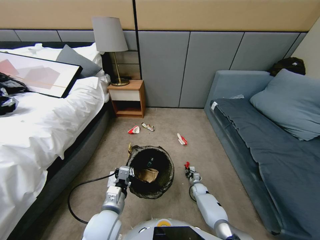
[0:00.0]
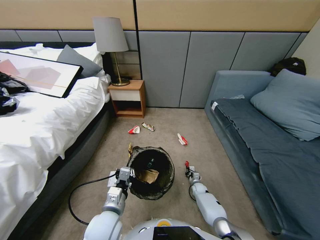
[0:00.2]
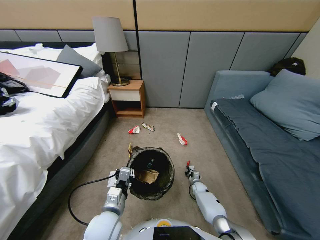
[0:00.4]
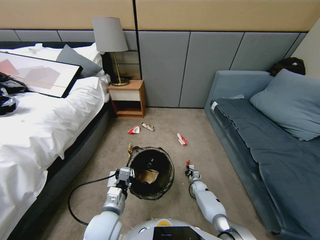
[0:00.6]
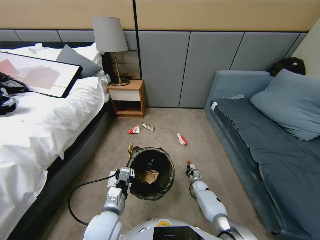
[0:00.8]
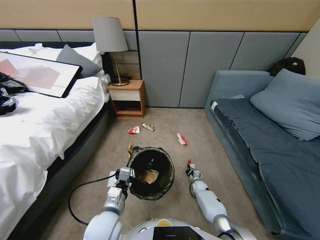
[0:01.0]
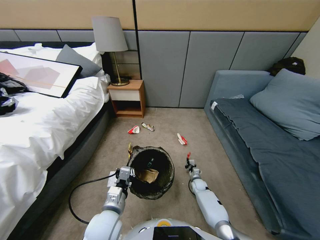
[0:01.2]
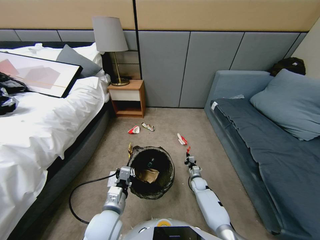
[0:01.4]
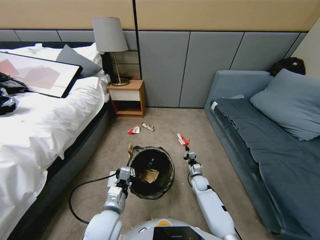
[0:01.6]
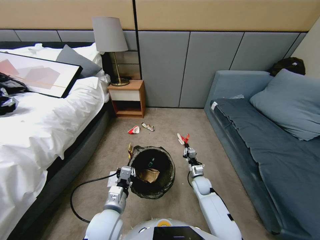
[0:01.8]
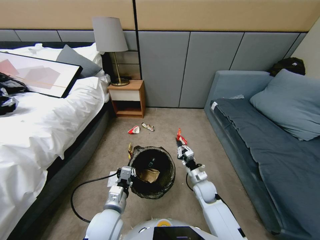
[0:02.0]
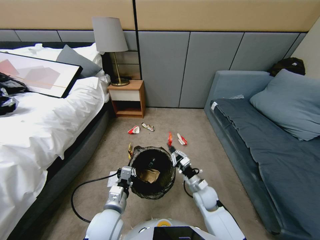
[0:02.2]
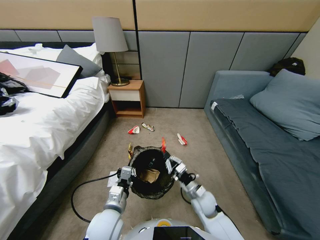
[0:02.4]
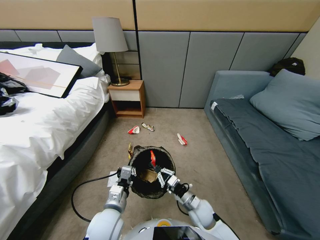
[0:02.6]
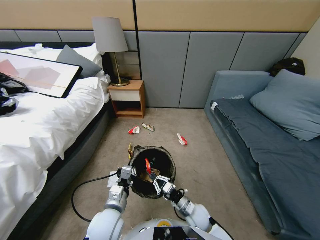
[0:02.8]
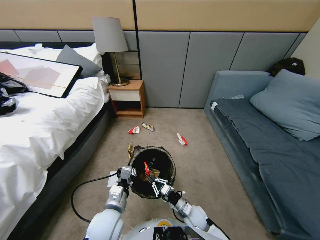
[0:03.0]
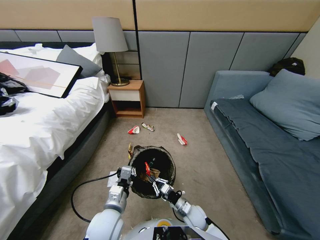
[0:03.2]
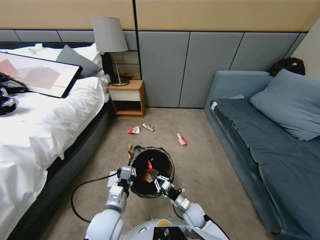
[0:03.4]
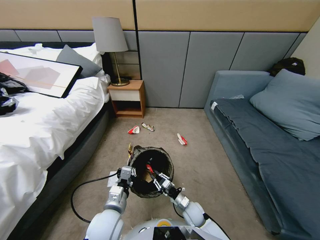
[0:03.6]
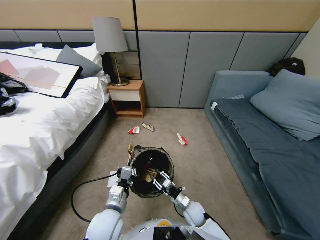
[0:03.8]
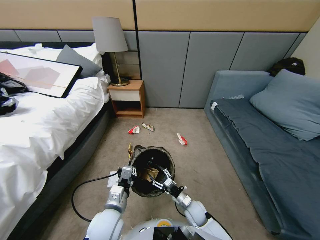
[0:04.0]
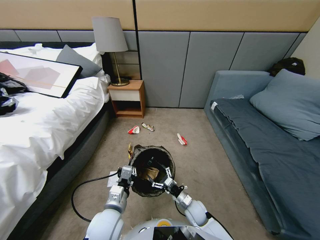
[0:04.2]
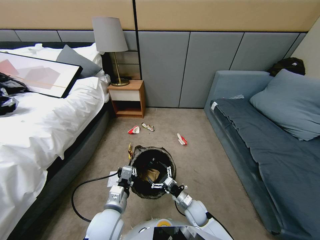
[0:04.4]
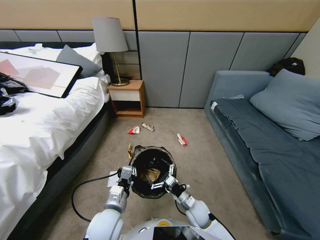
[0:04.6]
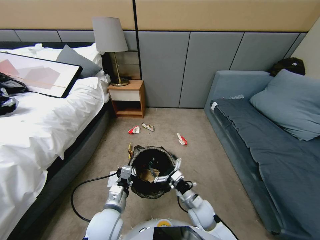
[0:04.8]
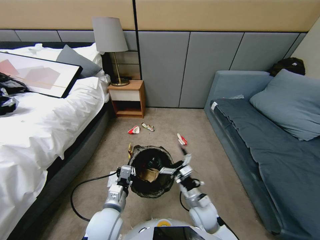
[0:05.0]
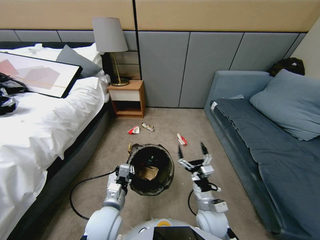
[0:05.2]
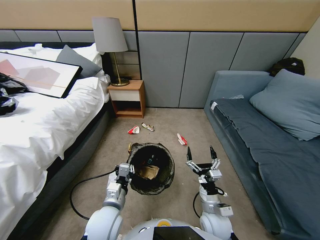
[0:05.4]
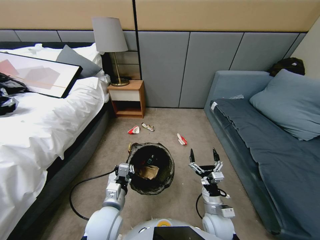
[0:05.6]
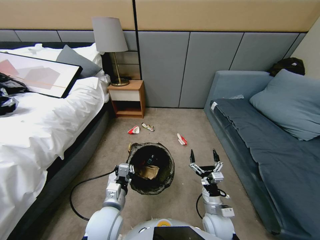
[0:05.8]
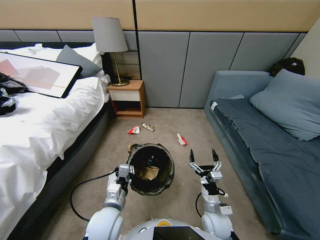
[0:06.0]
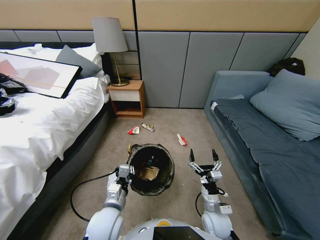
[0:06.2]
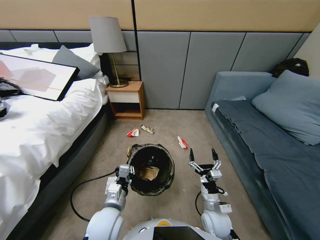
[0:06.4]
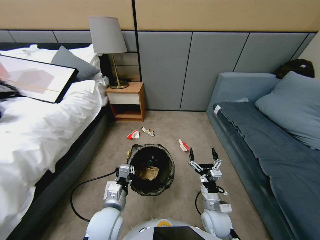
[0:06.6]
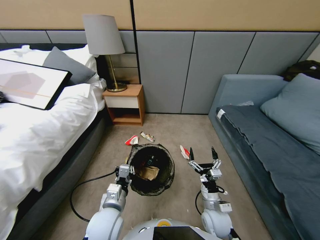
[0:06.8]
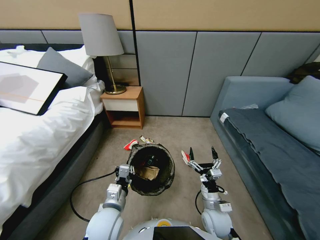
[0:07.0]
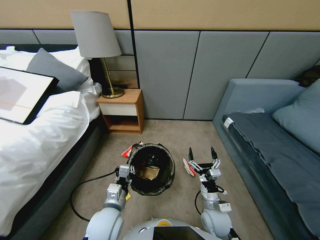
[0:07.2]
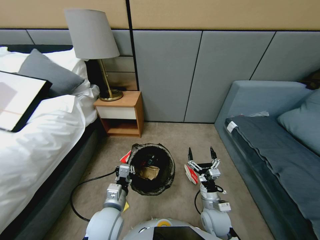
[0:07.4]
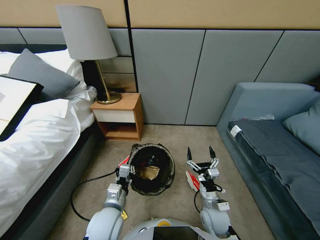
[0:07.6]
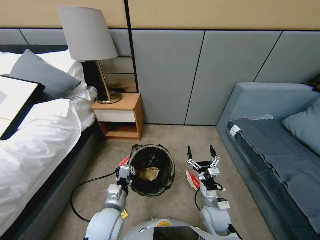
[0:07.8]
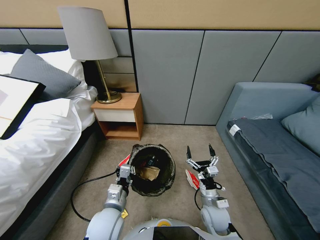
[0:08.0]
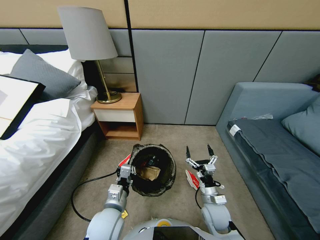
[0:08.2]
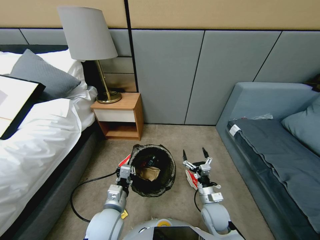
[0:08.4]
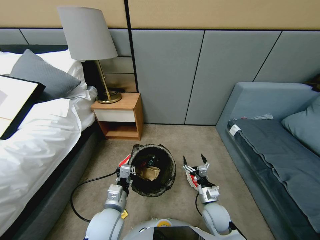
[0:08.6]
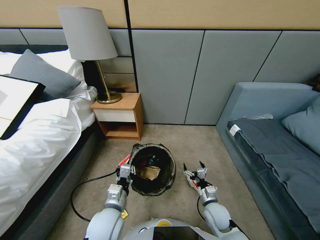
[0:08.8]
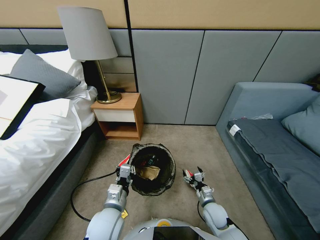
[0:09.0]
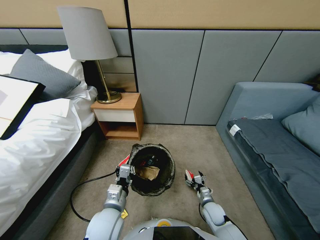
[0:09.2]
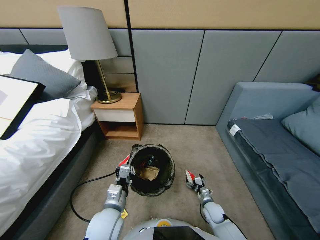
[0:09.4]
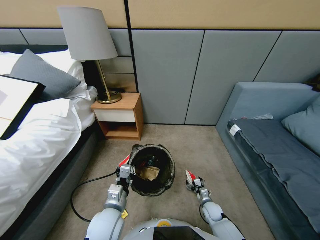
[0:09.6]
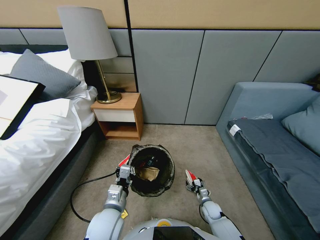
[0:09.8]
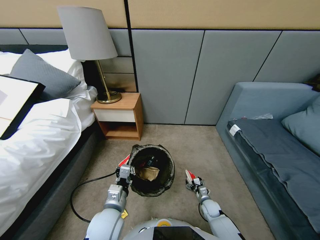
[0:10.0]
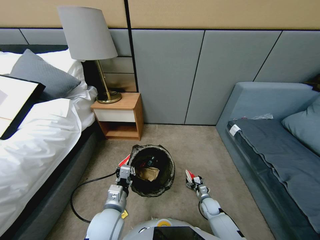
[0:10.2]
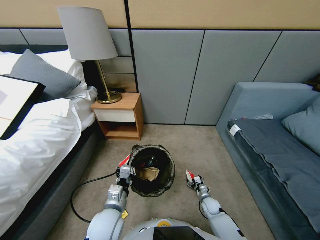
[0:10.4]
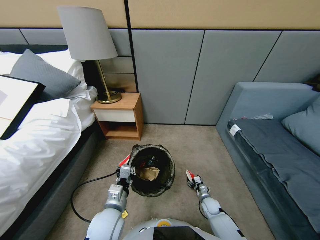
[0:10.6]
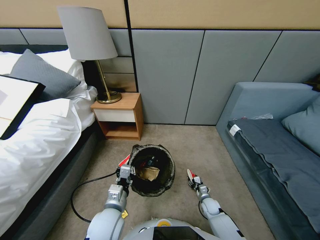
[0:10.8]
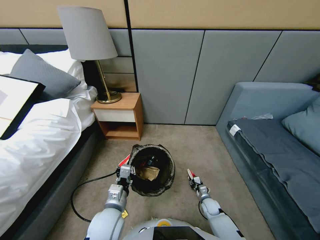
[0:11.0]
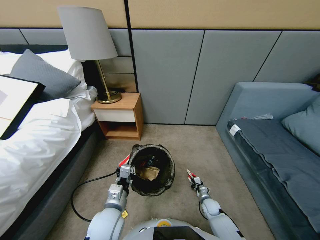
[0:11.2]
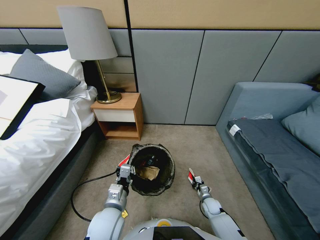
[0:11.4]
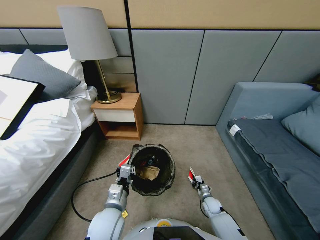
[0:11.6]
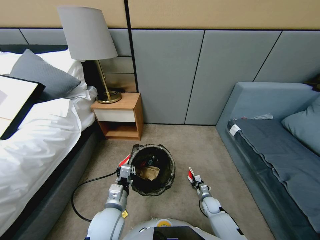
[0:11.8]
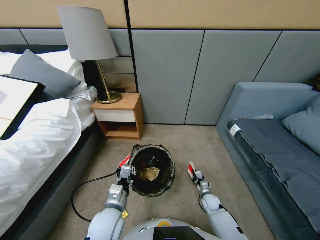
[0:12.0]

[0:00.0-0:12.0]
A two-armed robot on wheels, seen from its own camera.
Task of the whole recording: Pick up the trash bin, then pick up the garbage from the floor and place it into the trash bin.
0:00.0 to 0:01.6: The right gripper goes some 15 cm upward.
0:01.6 to 0:03.0: The right gripper shifts roughly 15 cm backward and to the left.
0:03.0 to 0:04.4: The right gripper opens.
0:04.4 to 0:06.0: The right gripper is displaced upward by roughly 5 cm.
0:07.6 to 0:09.0: The right gripper shifts roughly 10 cm downward.
0:09.0 to 0:10.4: The right gripper goes about 10 cm downward.
0:10.4 to 0:12.0: The right gripper goes some 5 cm upward, and closes up.

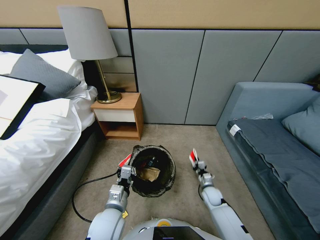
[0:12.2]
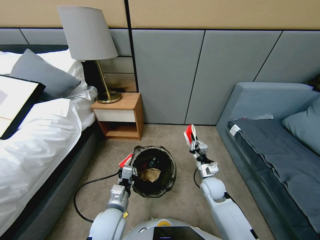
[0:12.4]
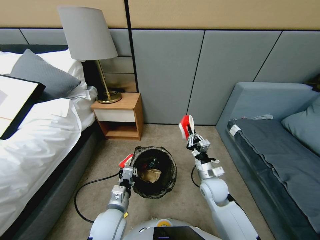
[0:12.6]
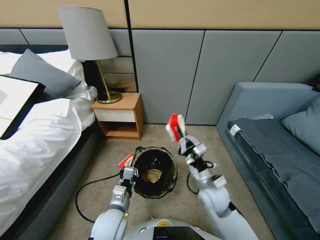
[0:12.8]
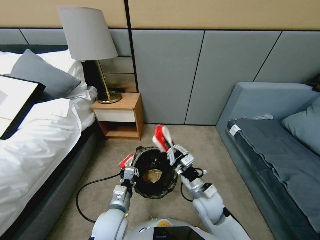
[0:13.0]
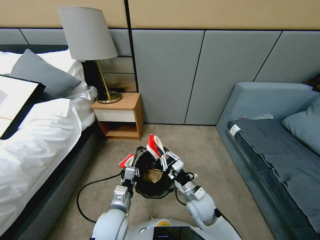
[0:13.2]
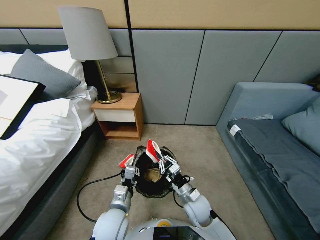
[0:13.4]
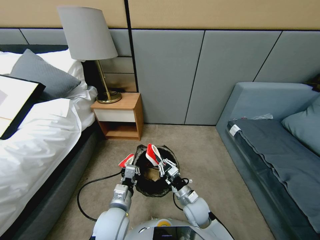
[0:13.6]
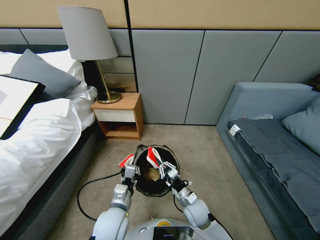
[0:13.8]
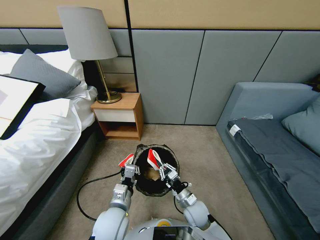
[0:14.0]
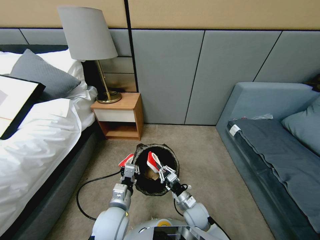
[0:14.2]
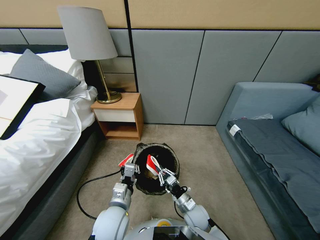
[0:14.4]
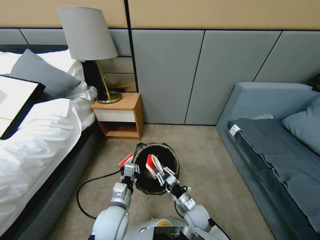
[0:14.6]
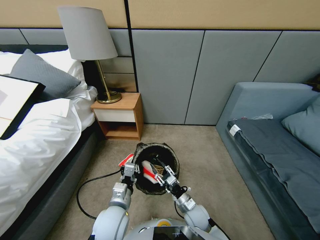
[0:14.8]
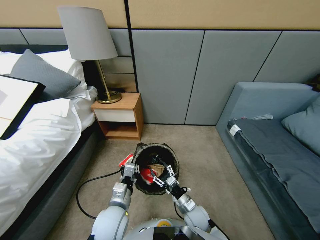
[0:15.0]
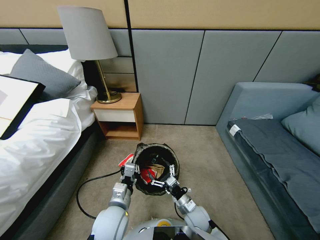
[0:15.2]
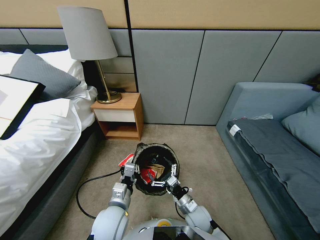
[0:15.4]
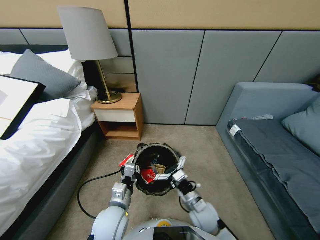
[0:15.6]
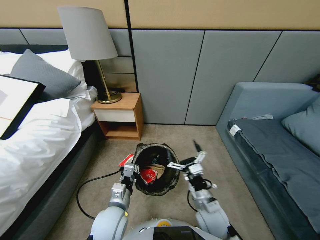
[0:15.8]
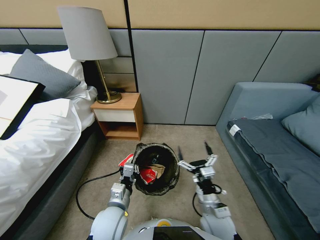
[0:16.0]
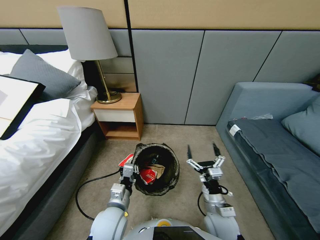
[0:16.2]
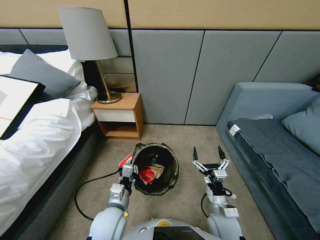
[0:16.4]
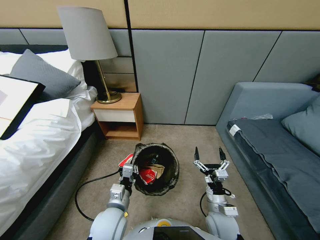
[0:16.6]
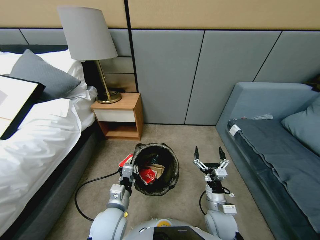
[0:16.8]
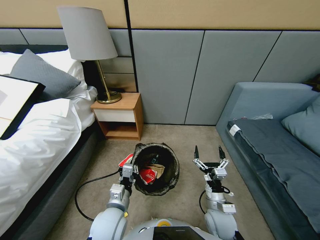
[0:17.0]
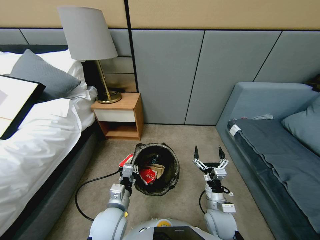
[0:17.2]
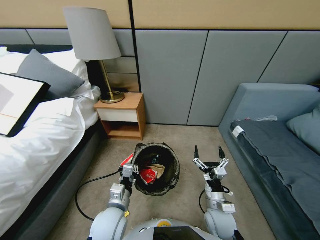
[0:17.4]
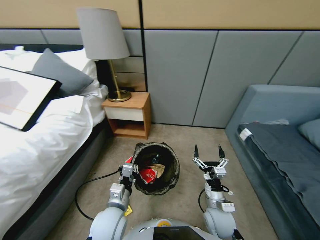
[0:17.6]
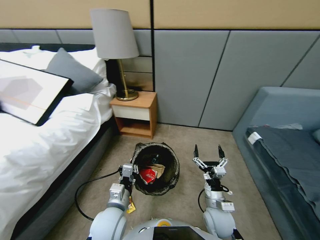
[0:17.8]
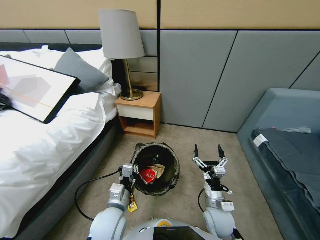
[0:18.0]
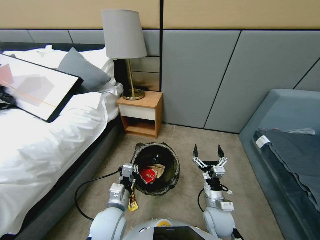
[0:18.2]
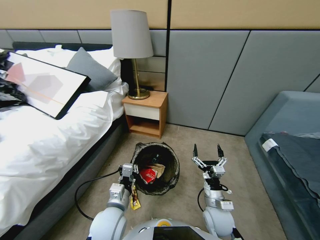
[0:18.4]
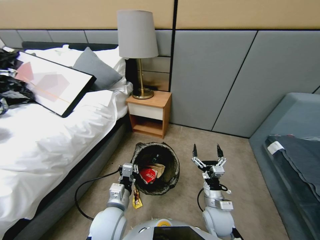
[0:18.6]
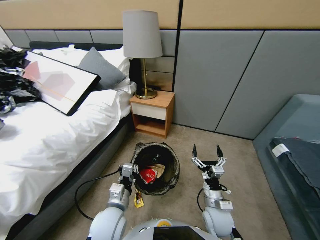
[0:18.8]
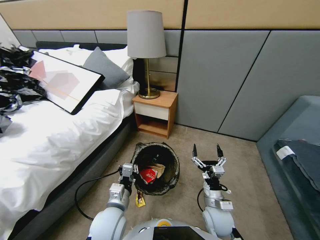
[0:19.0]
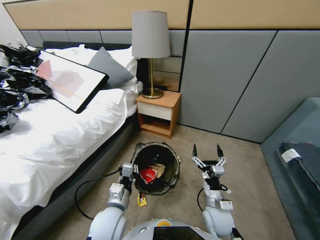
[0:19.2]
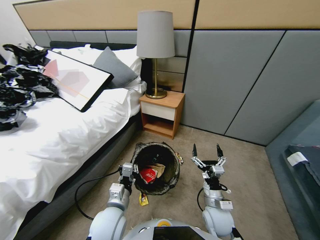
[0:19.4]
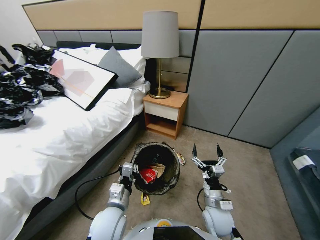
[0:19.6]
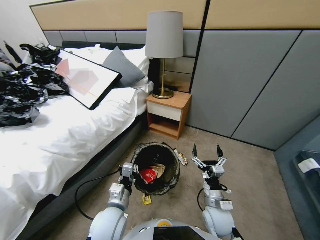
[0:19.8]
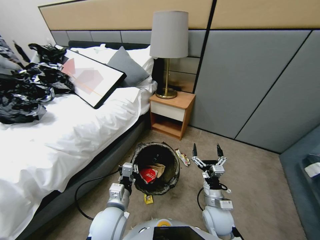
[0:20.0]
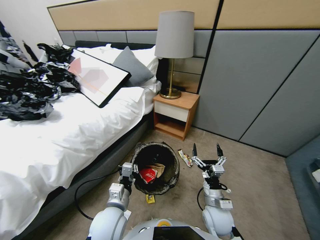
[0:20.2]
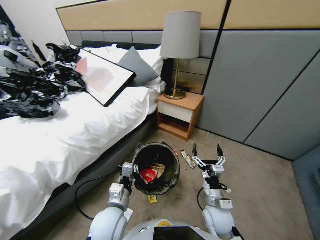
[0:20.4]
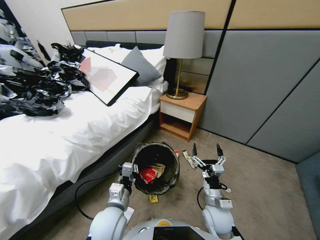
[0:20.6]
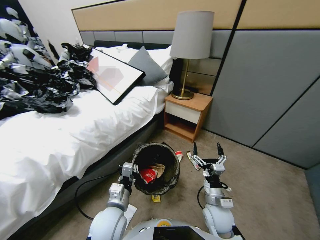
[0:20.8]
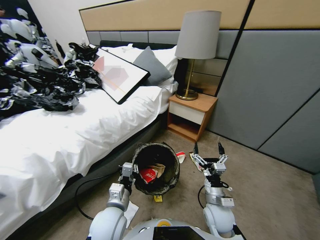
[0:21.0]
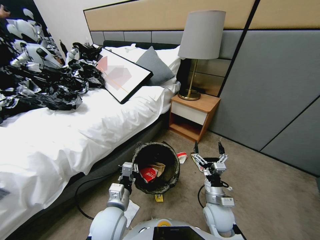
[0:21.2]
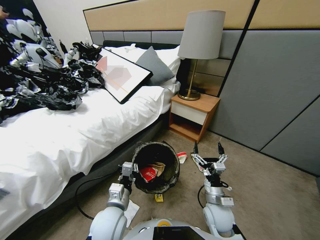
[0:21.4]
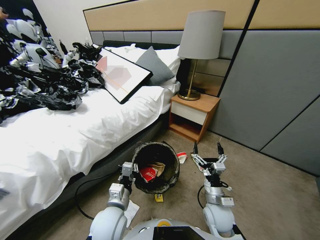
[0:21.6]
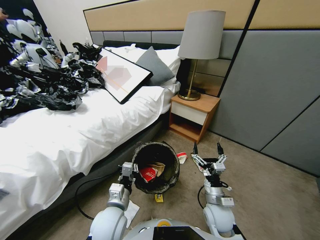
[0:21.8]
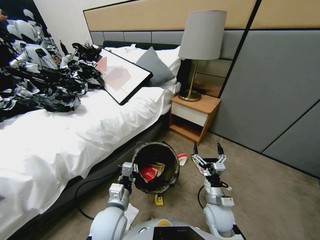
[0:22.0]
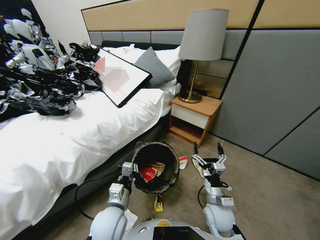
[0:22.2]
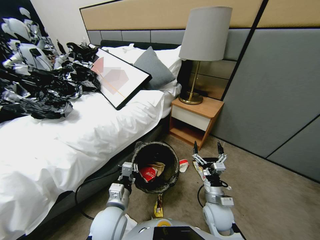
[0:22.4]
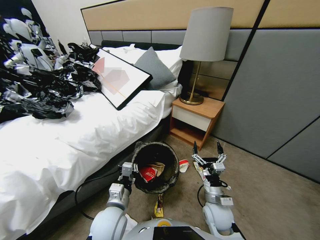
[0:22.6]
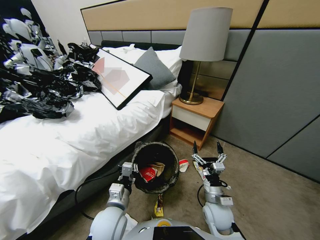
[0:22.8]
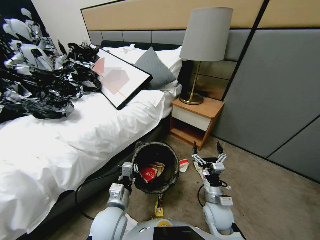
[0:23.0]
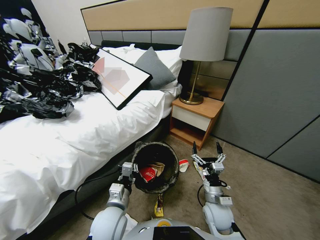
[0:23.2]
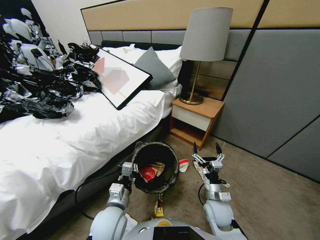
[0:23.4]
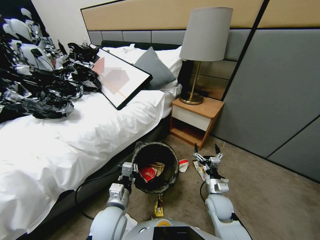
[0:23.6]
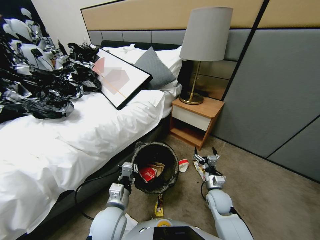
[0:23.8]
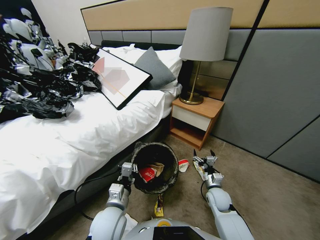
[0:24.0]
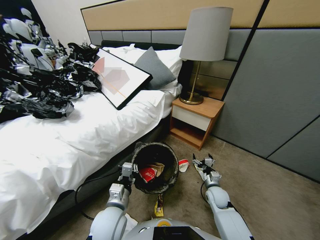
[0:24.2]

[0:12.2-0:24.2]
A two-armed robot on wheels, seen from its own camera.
Task of the whole recording: Pick up the trash bin, then pick up the garbage from the floor and place it into the trash bin.
0:12.2 to 0:13.8: The right gripper moves to the left and backward, about 15 cm, and travels upward and back again, roughly 15 cm each way.
0:13.8 to 0:15.2: The right gripper opens its fingers.
0:15.2 to 0:16.6: The right gripper shifts roughly 10 cm to the right and upward.
0:22.6 to 0:24.2: The right gripper is displaced downward, forward and to the right by approximately 15 cm.
